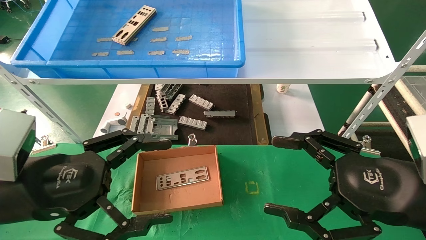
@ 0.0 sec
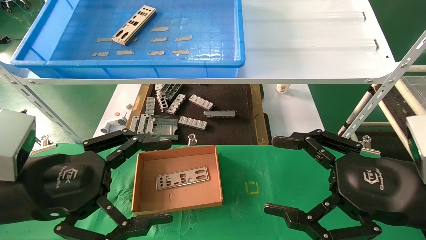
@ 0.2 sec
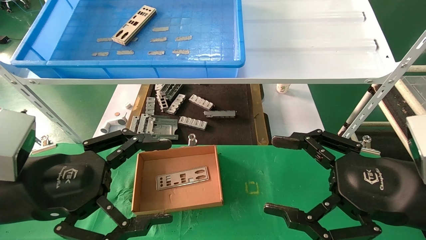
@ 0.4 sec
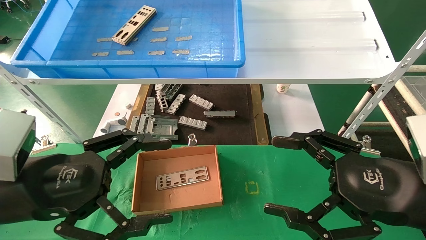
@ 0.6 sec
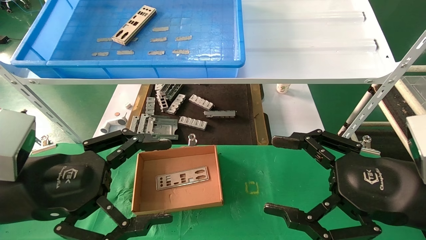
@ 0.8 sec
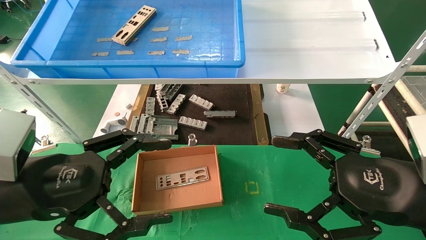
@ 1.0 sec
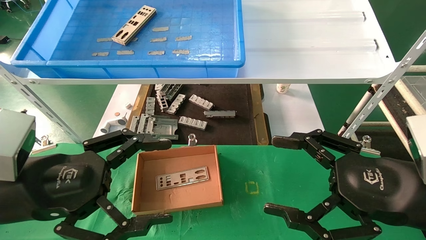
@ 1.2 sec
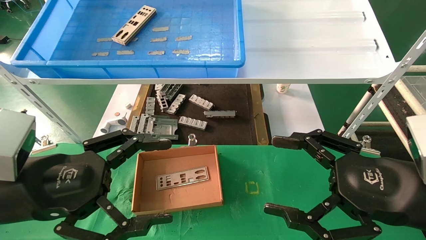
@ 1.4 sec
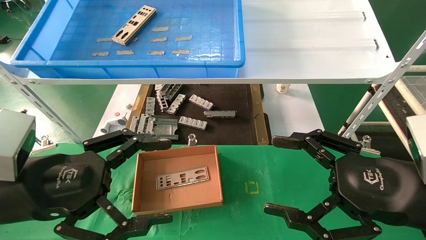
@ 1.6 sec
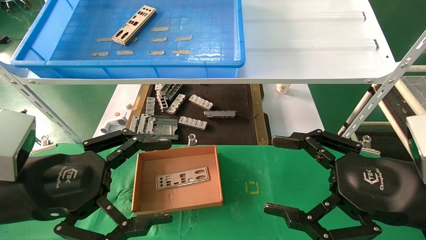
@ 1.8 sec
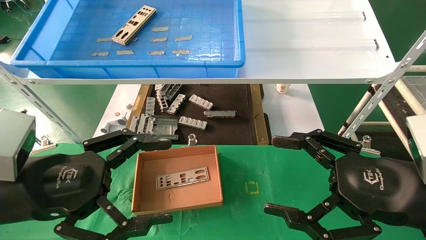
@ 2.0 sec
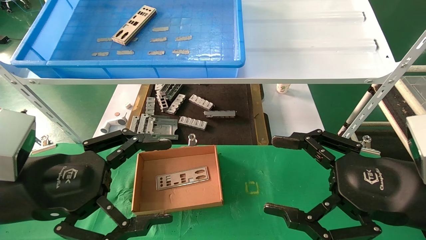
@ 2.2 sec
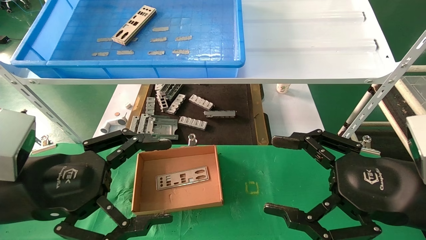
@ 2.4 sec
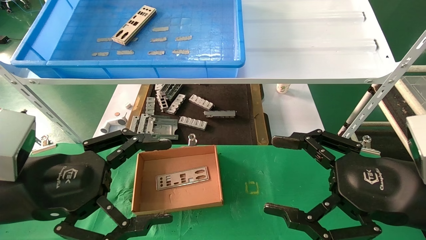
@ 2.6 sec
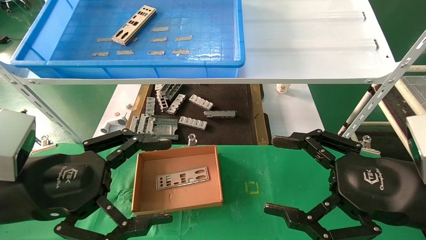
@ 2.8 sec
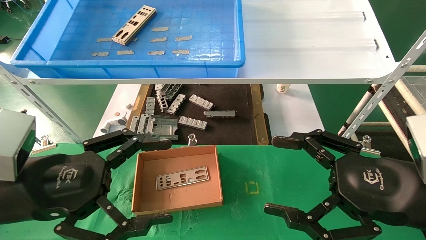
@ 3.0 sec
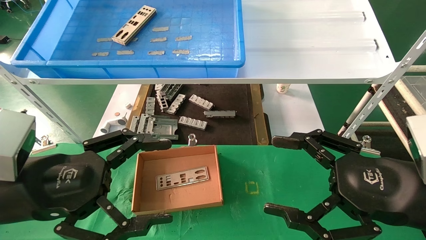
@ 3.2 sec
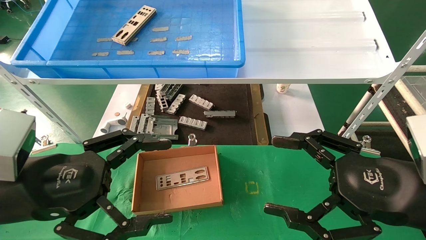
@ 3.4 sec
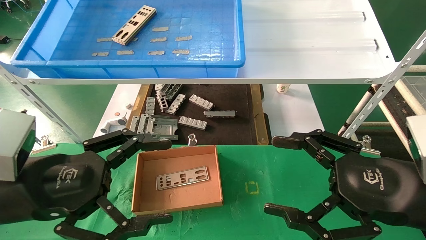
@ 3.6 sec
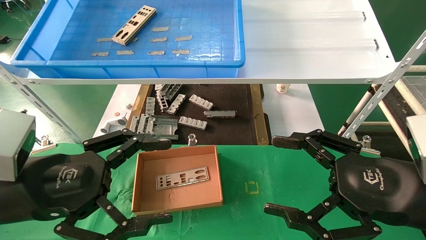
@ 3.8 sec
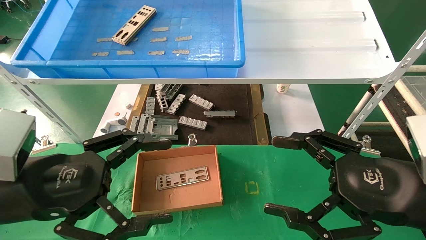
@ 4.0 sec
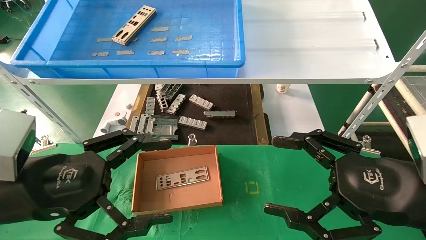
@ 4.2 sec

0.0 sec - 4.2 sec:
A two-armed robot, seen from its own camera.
Task of the whole recording: pick up the parts on the tray and put them in the cardboard box.
0.0 sec - 4.2 sec: Both grippers stay put.

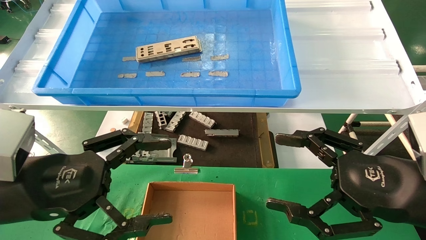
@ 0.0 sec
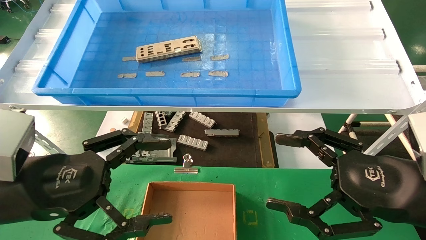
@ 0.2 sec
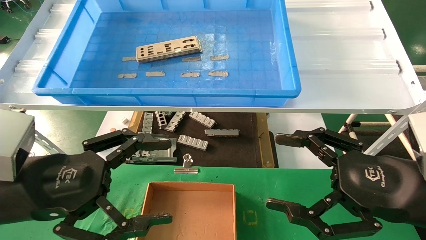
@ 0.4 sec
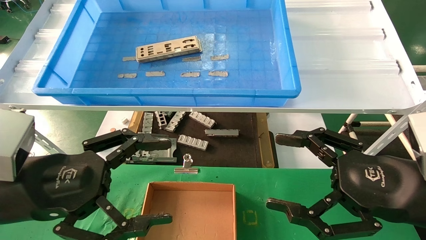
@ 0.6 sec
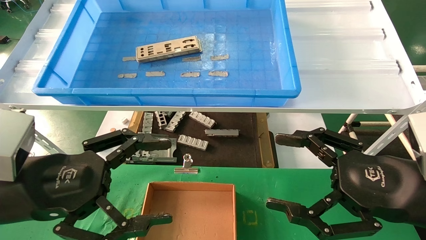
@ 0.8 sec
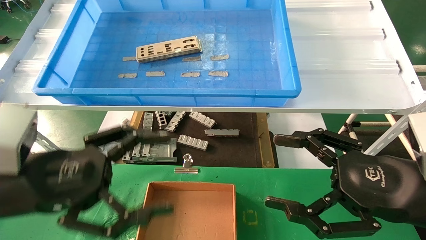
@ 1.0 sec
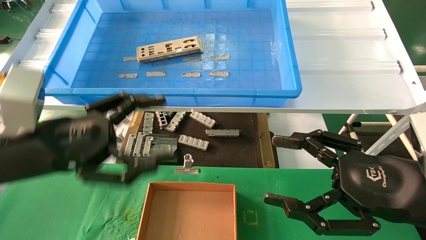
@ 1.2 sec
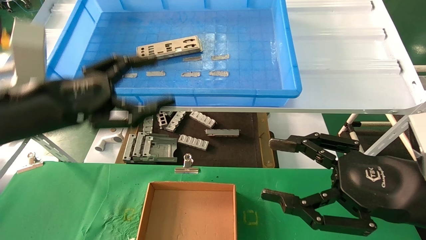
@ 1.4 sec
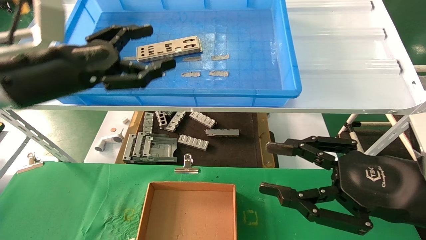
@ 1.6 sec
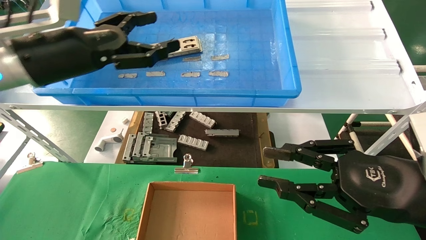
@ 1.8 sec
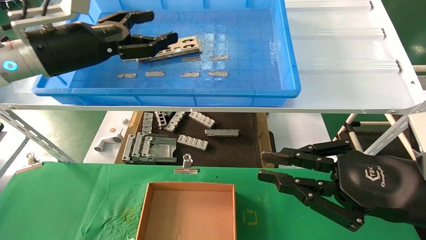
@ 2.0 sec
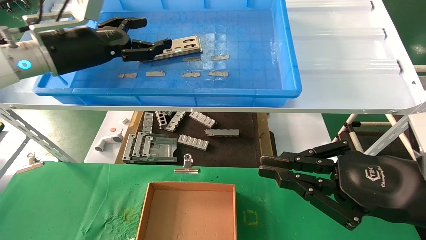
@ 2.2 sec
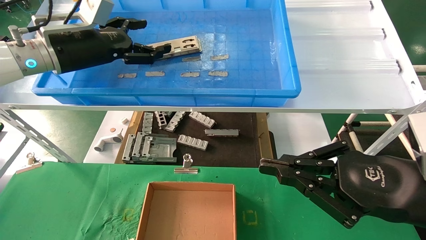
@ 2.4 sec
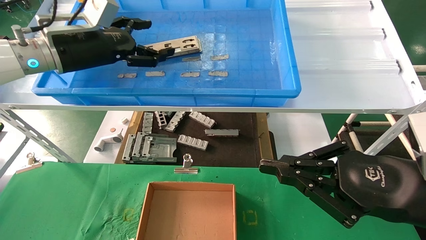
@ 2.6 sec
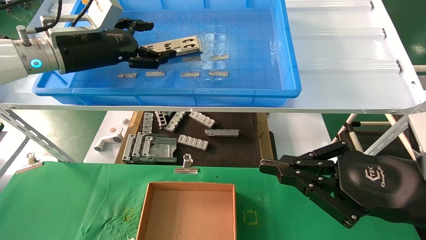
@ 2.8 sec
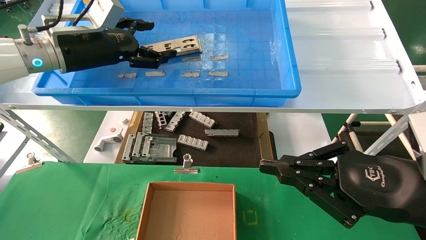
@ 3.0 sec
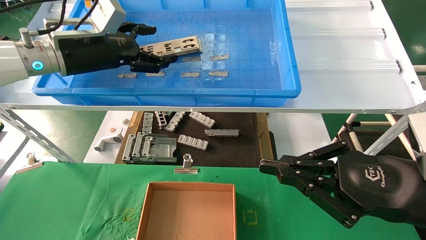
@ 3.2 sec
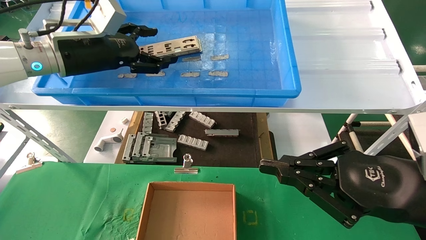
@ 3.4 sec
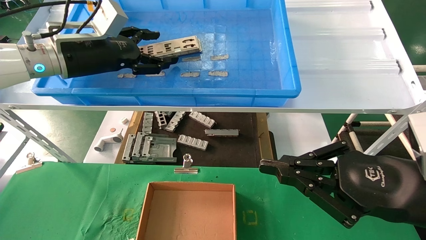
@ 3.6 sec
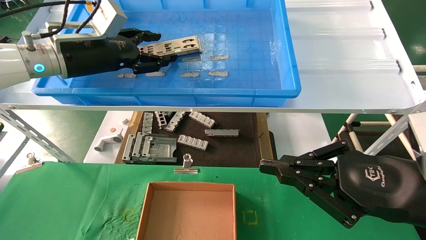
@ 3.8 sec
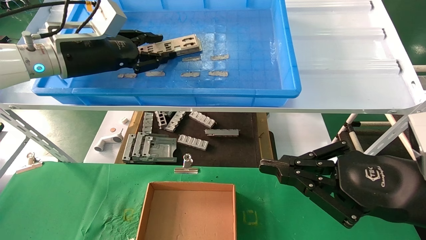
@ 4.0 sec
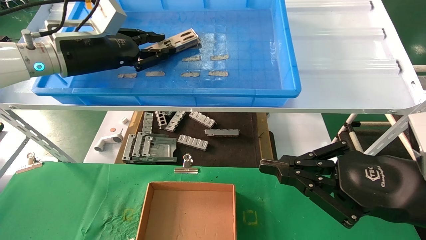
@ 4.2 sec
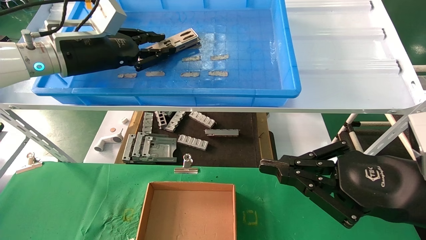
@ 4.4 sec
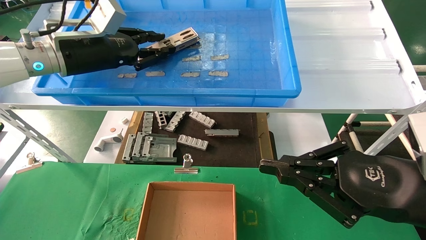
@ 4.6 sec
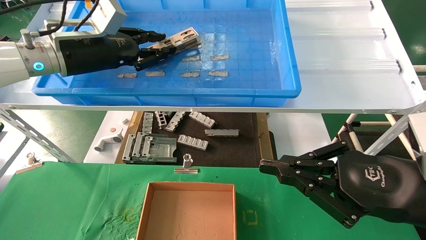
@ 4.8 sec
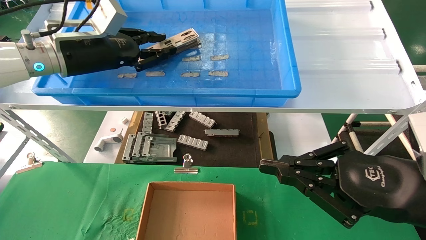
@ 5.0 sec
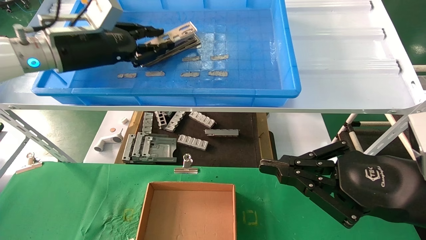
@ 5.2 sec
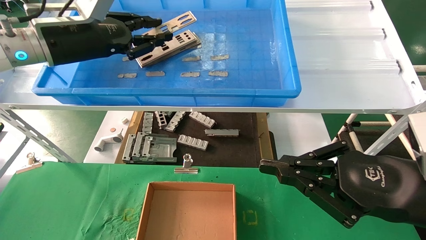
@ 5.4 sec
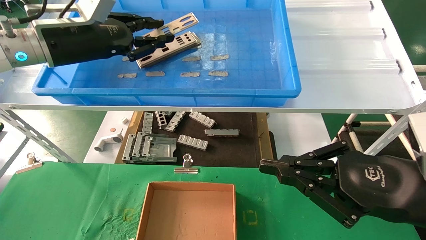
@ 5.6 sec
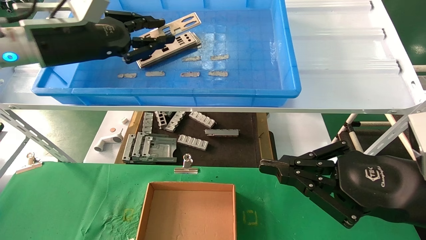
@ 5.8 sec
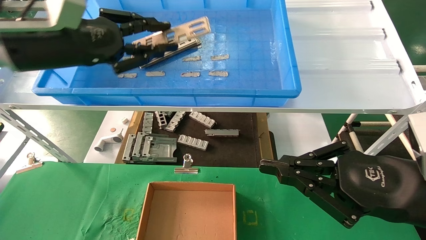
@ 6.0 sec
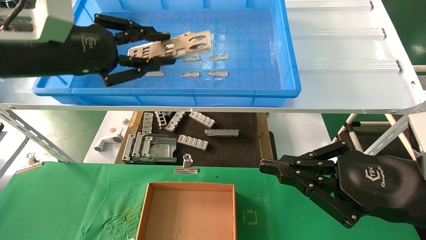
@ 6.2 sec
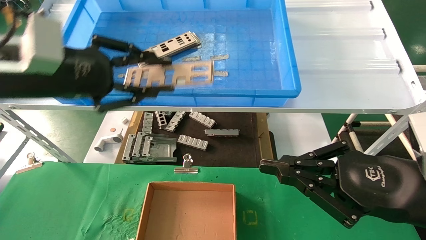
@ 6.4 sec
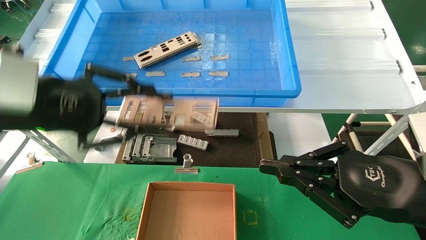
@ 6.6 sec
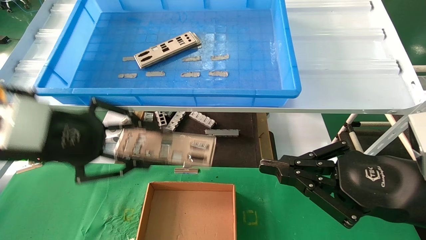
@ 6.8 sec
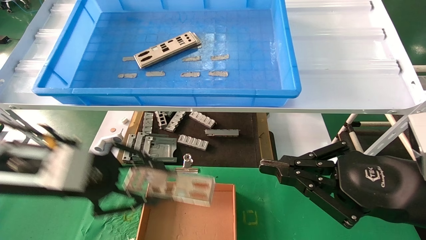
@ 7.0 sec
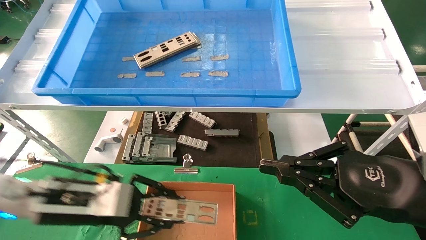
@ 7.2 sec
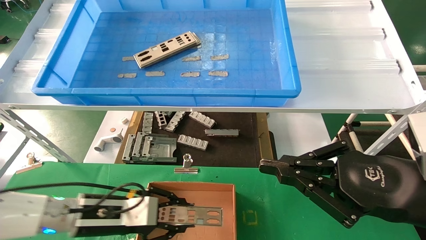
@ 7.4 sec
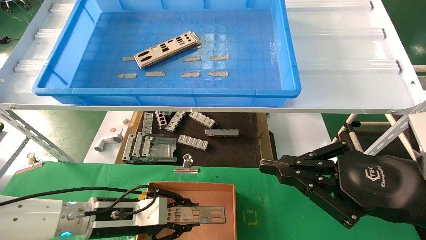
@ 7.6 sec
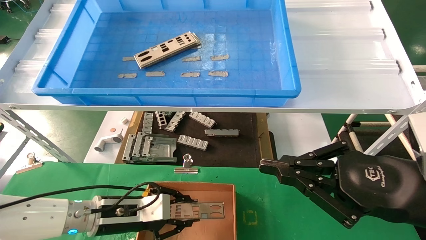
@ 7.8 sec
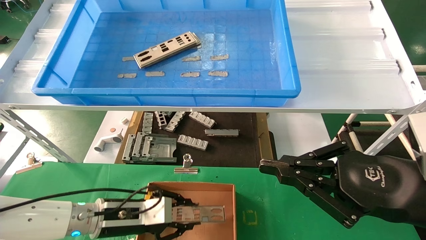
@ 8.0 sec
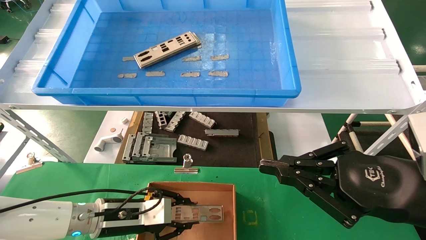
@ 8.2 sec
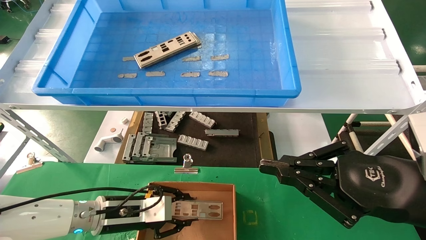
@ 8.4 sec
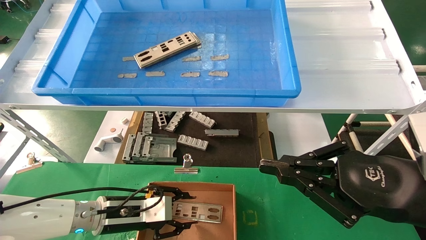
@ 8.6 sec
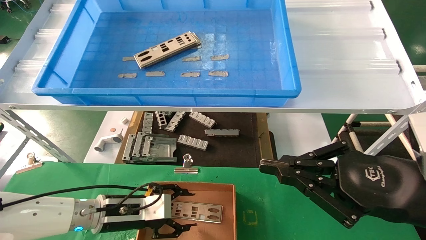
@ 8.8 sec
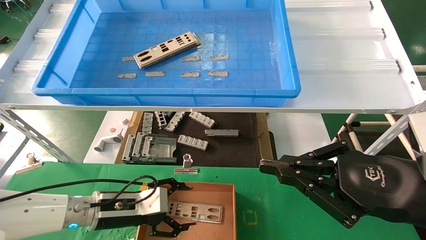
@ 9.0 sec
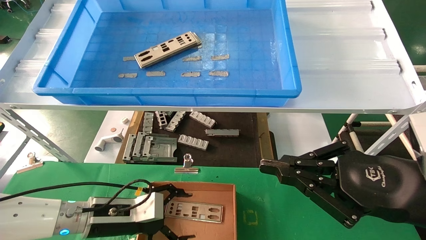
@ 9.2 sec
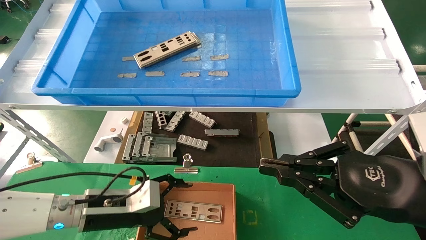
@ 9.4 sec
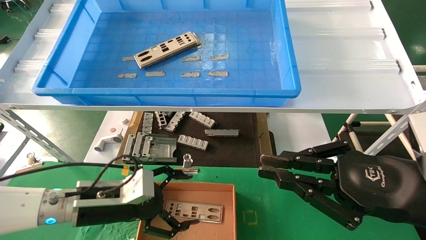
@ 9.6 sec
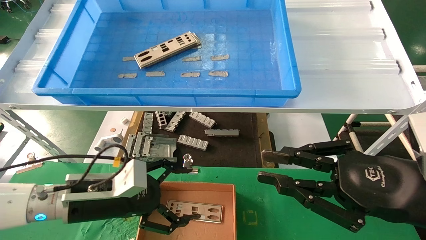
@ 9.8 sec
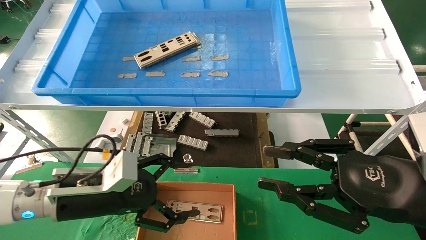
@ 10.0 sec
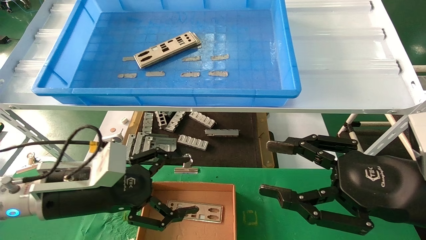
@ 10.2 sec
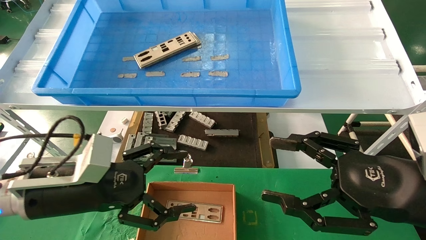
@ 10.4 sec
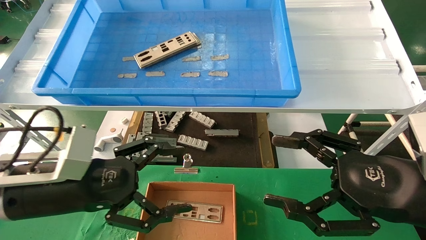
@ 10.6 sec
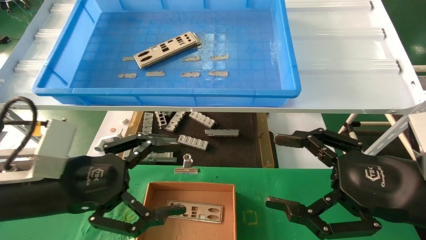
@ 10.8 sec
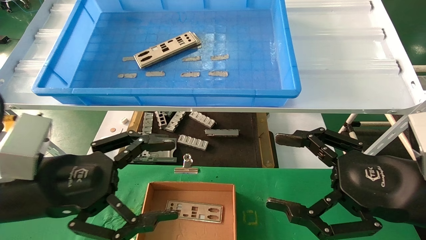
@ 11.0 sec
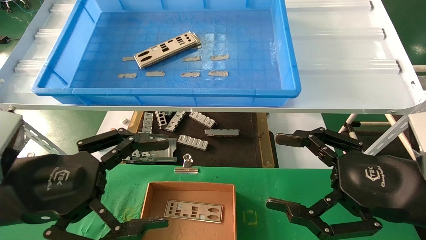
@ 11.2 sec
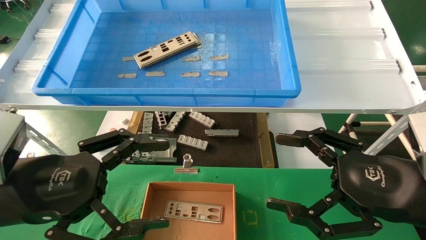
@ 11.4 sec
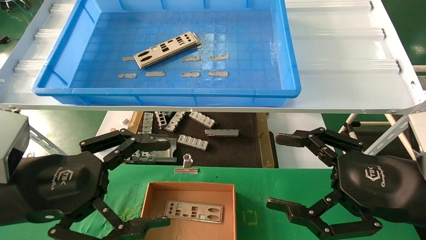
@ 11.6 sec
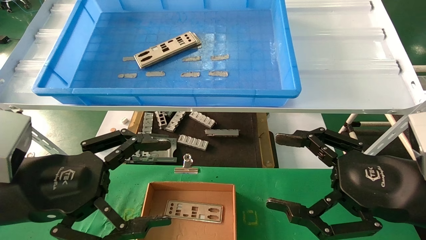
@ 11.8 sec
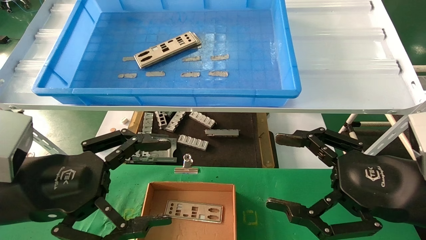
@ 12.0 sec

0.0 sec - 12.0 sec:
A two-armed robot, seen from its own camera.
Task of the whole recording: pick up the parts on the tray and put them in the cardboard box.
Step, 1.4 sec - 4.8 sec: Pick up the IO bracket from the container box.
Step, 5.0 sec - 8.6 sec: Place the IO bracket into the ingredient slot.
0.0 sec - 1.6 sec: The left gripper goes approximately 15 cm forward and upward.
1.6 sec - 3.0 sec: The left gripper goes about 10 cm forward. The right gripper closes up.
3.0 sec - 4.4 sec: The left gripper closes up.
4.4 sec - 6.0 sec: The left gripper goes approximately 5 cm backward.
6.0 sec - 7.6 sec: The left gripper moves downward, roughly 30 cm.
7.6 sec - 9.0 sec: The left gripper opens its fingers.
9.0 sec - 10.4 sec: The left gripper heads upward and backward, covering approximately 15 cm, and opens its fingers, while the right gripper opens.
10.4 sec - 12.0 sec: The left gripper is displaced backward by about 5 cm, while the right gripper opens.
